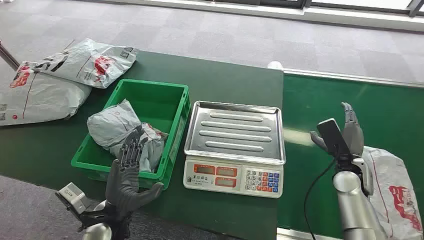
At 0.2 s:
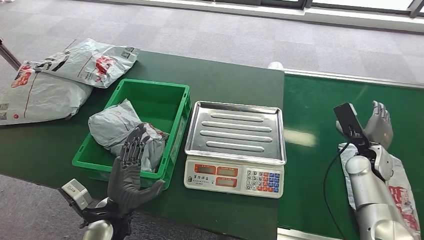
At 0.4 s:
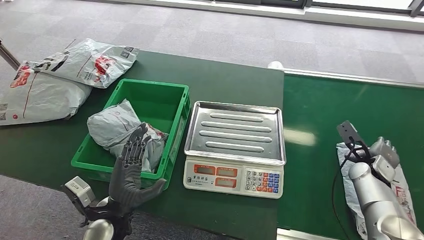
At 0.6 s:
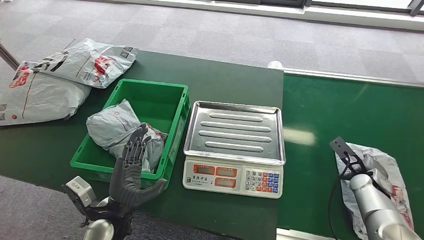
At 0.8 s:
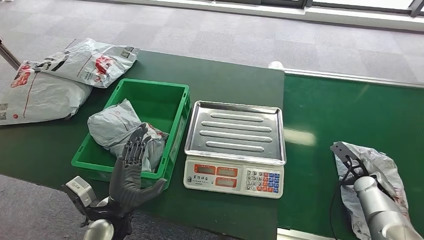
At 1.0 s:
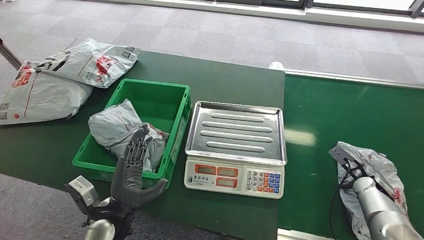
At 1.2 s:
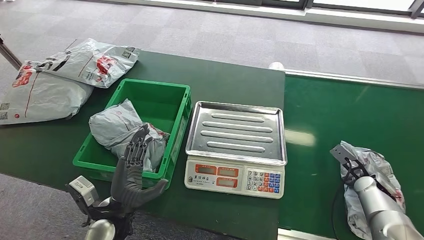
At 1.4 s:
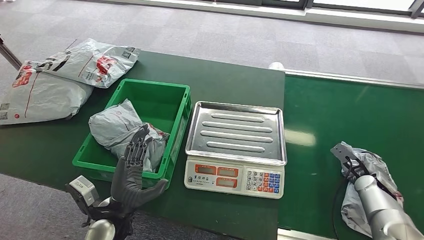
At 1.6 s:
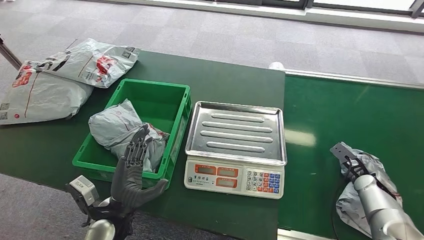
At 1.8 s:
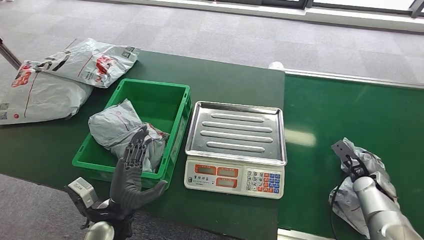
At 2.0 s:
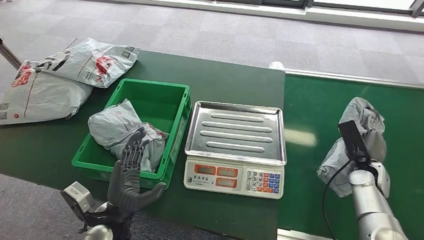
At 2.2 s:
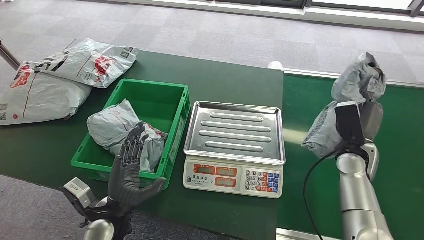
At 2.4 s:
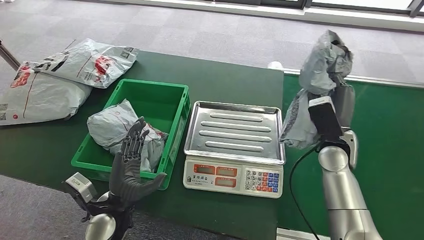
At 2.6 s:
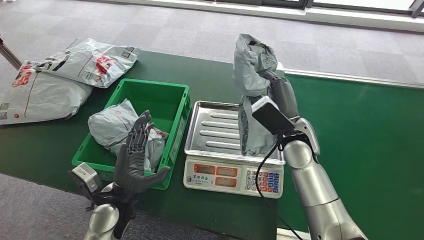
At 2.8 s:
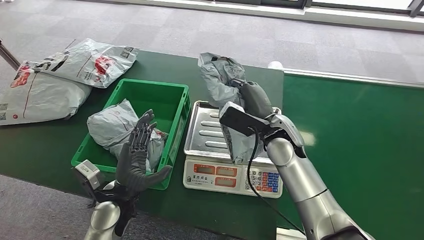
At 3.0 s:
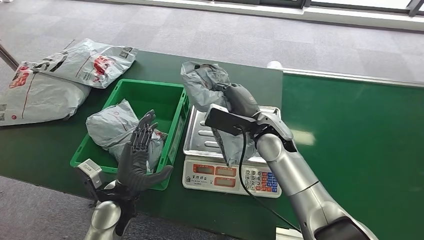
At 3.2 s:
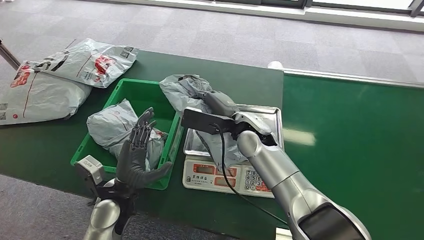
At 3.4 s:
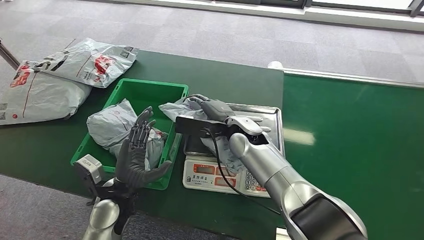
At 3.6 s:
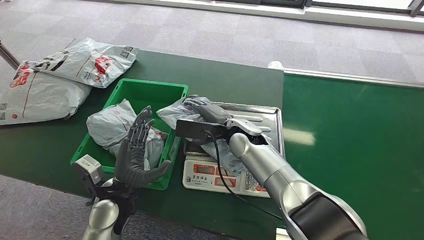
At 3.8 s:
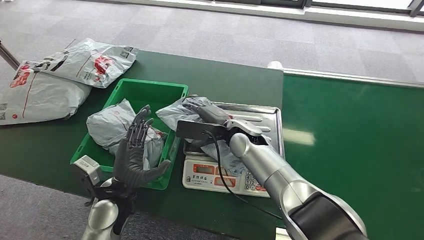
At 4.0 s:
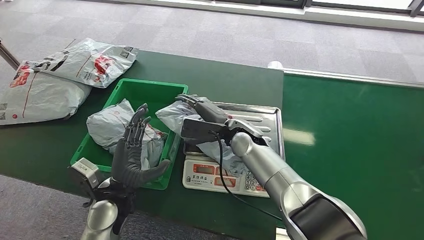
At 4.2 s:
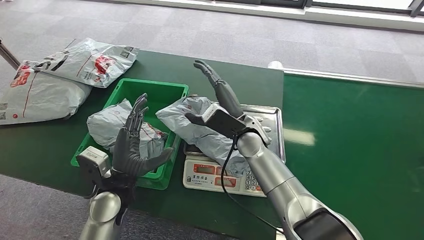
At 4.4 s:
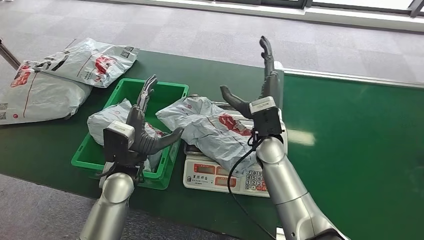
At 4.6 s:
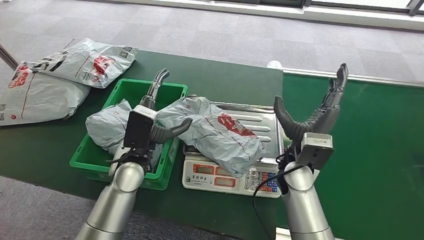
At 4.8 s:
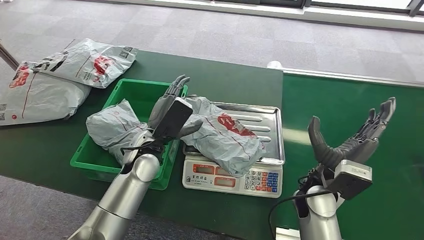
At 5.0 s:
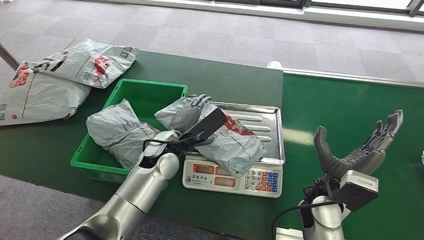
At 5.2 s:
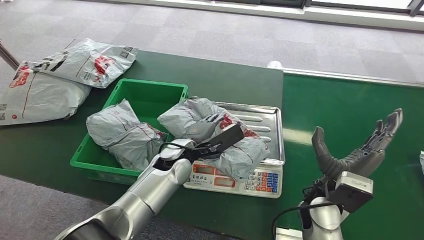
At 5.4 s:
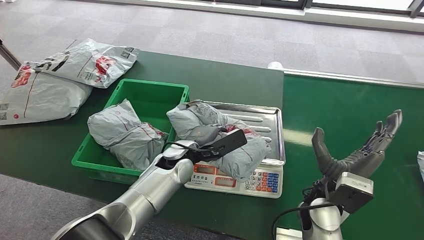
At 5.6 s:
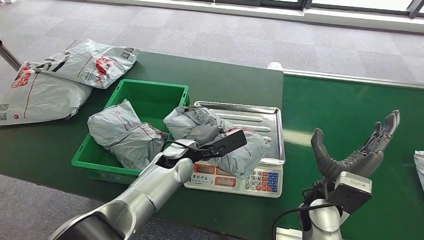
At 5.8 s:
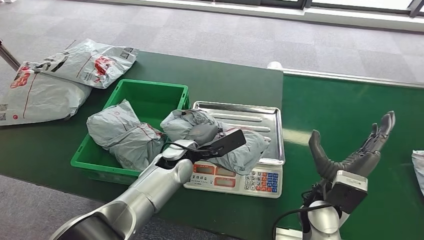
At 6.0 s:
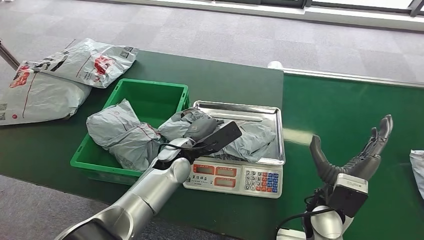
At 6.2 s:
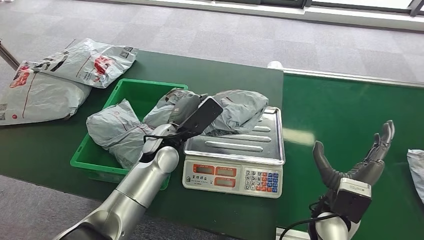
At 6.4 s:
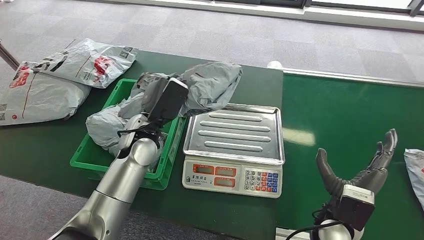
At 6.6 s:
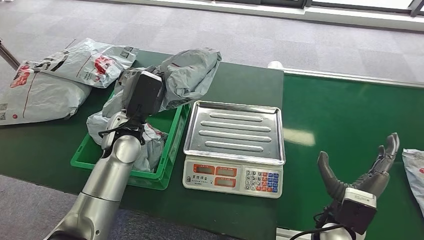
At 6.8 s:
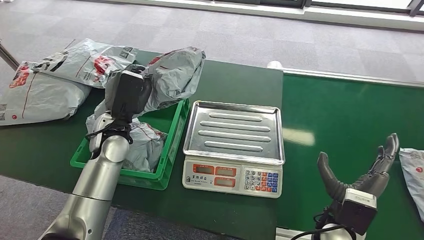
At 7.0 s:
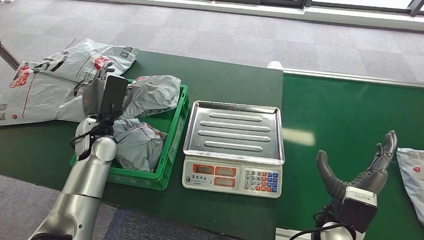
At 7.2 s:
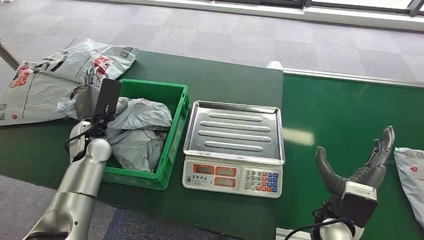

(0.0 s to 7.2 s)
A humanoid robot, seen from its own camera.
Step, 0.0 s - 3.0 s: Pick up the package from the conveyor belt.
Step, 3.2 s - 4.8 s: Place the package onto the inbound machine.
Step, 5.0 s - 6.6 s: Pick up the package from the inbound machine.
Step, 6.8 s - 7.0 s: Place the package into the parcel locker.
2.8 s - 4.4 s: The left hand heads upward and forward, covering approximately 10 cm.

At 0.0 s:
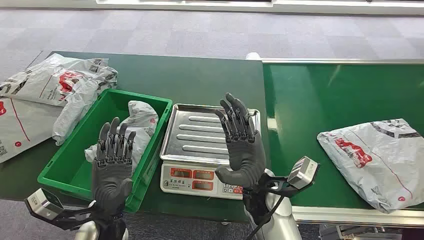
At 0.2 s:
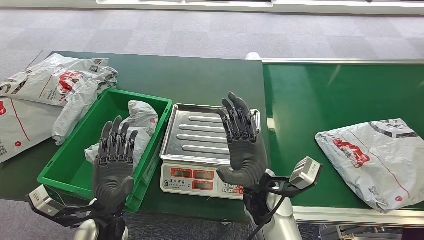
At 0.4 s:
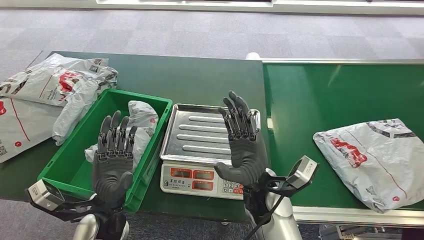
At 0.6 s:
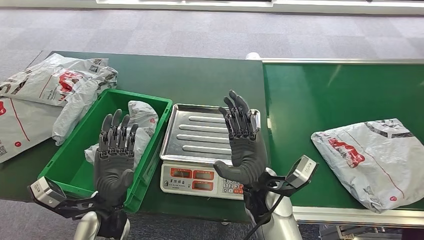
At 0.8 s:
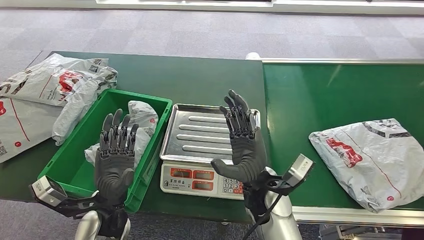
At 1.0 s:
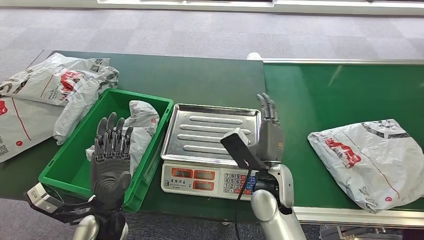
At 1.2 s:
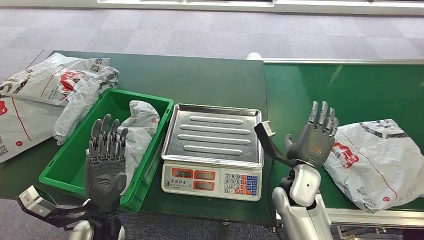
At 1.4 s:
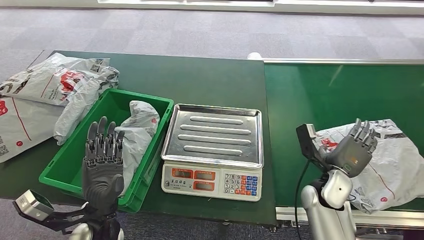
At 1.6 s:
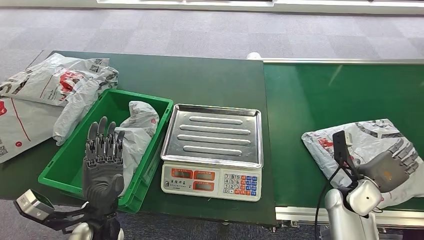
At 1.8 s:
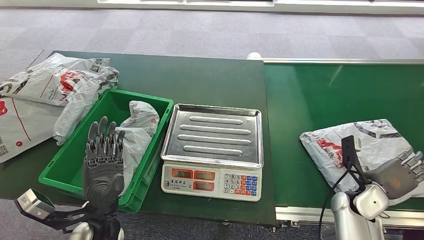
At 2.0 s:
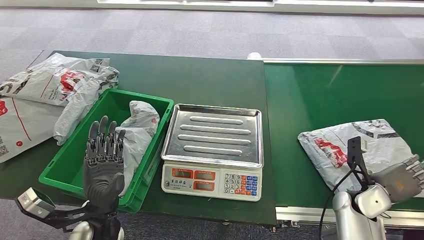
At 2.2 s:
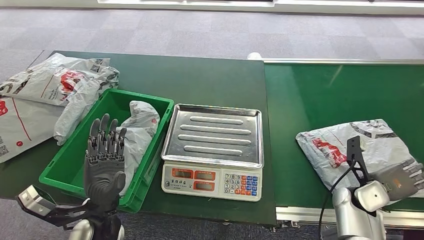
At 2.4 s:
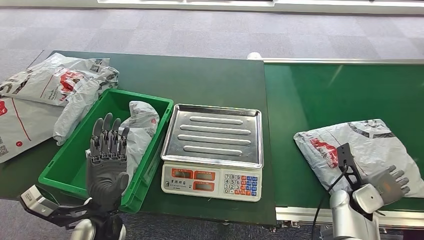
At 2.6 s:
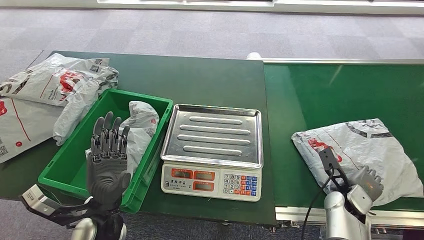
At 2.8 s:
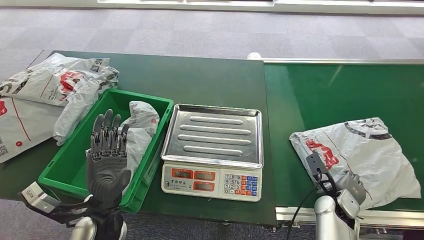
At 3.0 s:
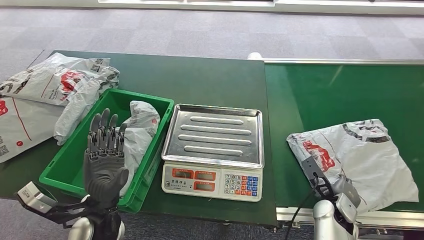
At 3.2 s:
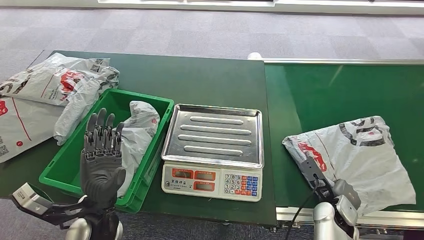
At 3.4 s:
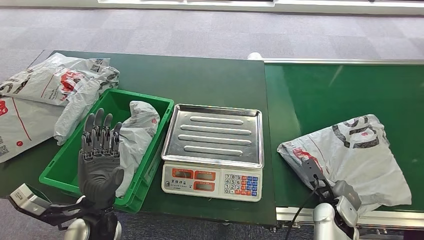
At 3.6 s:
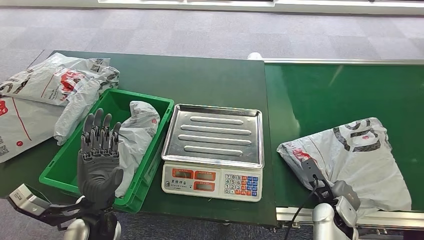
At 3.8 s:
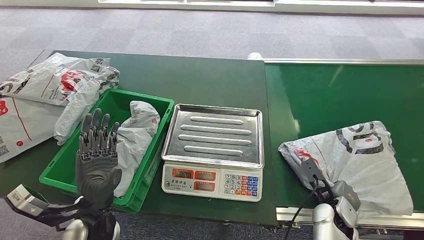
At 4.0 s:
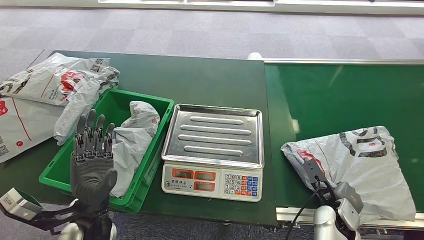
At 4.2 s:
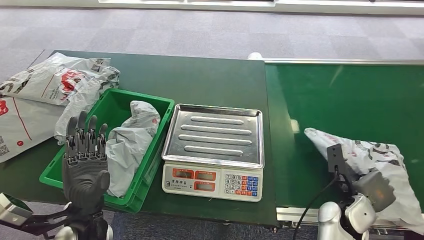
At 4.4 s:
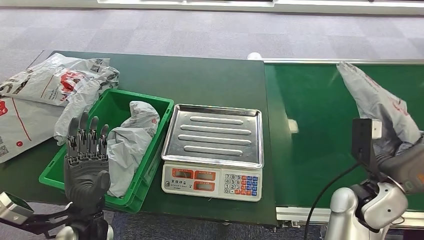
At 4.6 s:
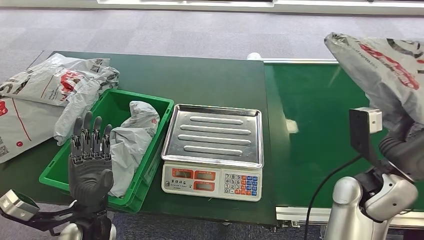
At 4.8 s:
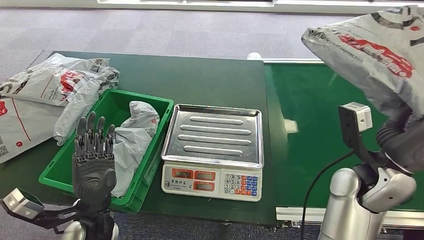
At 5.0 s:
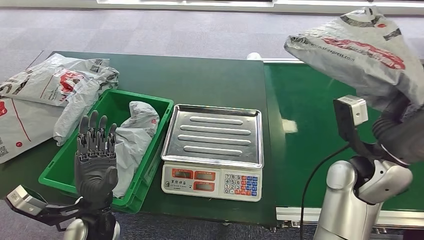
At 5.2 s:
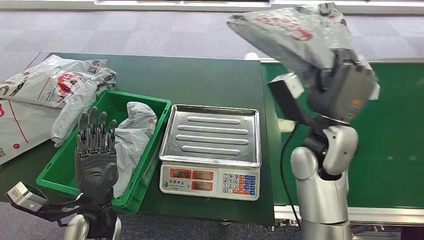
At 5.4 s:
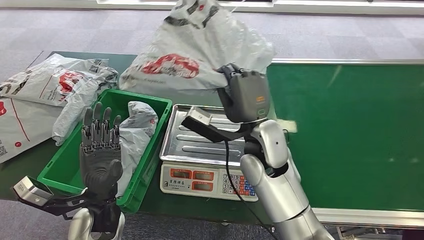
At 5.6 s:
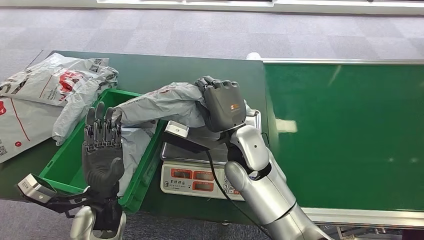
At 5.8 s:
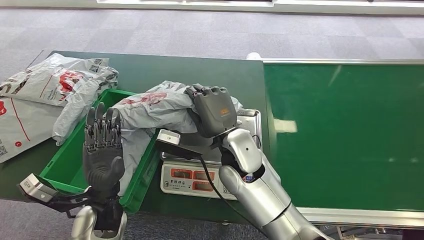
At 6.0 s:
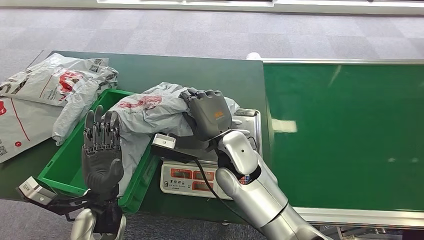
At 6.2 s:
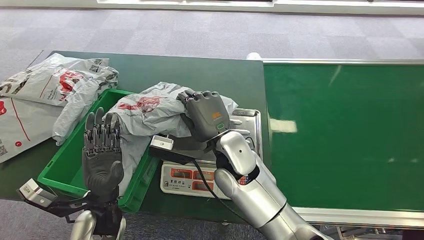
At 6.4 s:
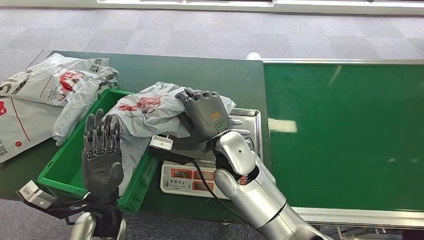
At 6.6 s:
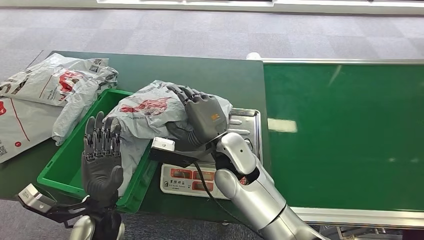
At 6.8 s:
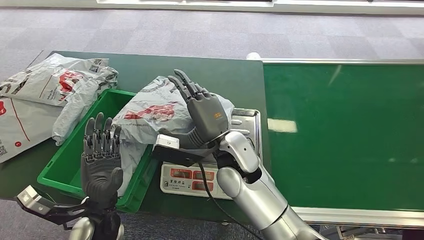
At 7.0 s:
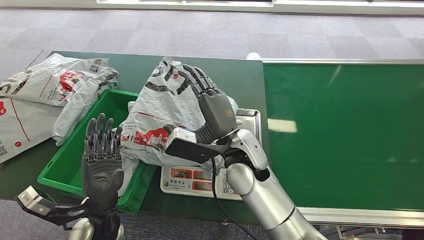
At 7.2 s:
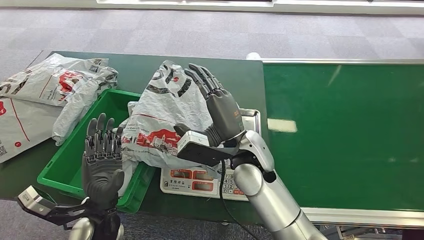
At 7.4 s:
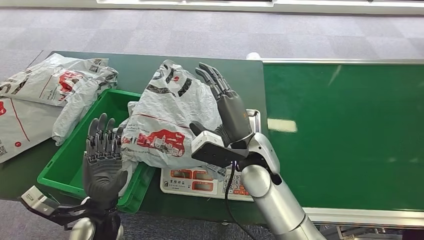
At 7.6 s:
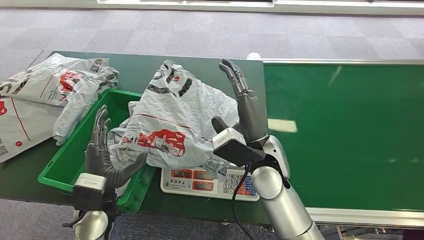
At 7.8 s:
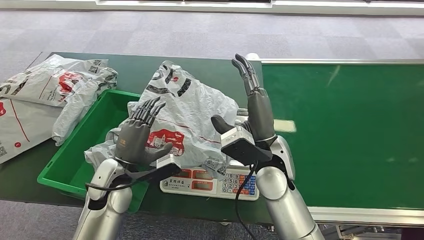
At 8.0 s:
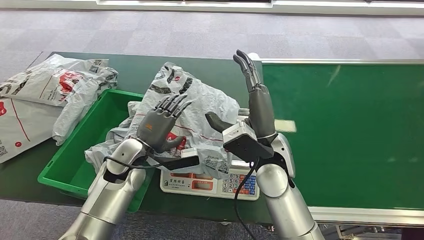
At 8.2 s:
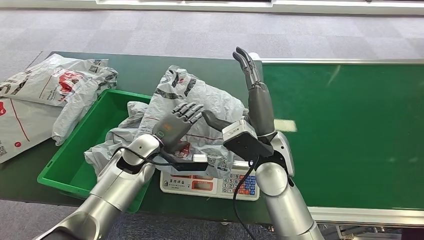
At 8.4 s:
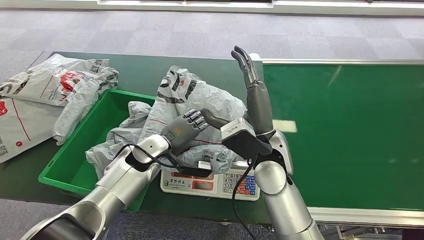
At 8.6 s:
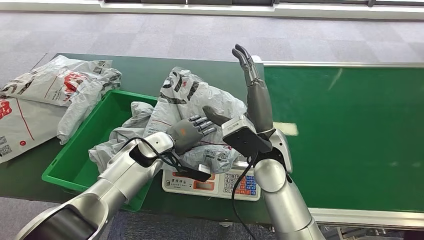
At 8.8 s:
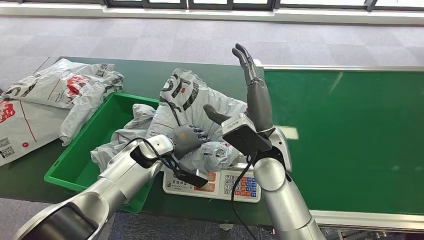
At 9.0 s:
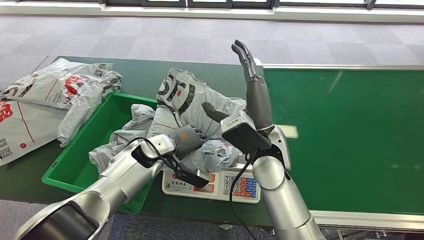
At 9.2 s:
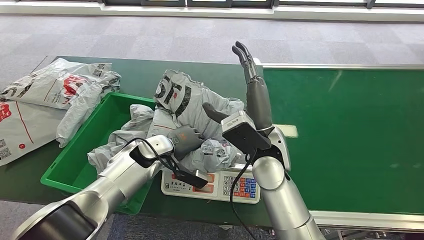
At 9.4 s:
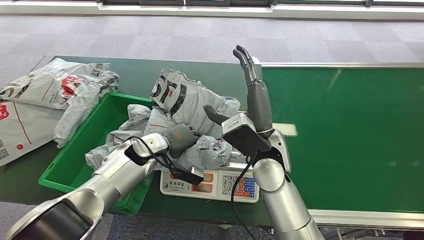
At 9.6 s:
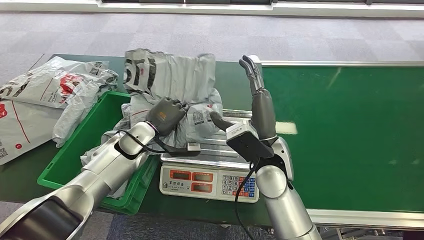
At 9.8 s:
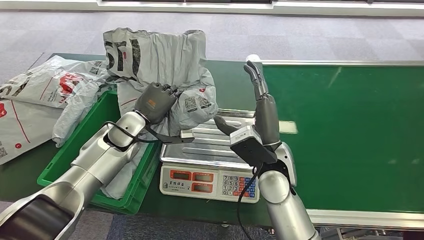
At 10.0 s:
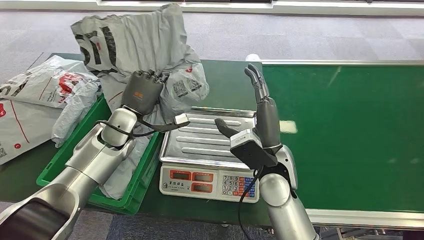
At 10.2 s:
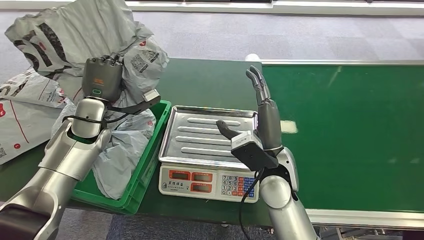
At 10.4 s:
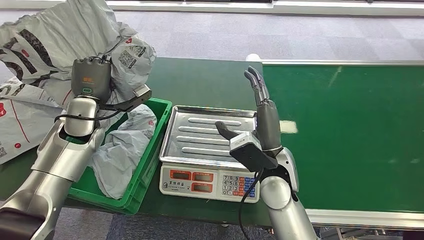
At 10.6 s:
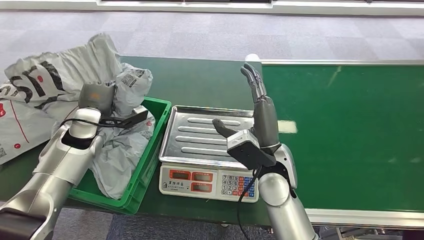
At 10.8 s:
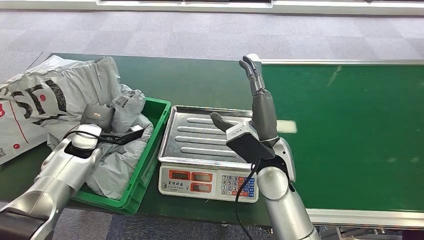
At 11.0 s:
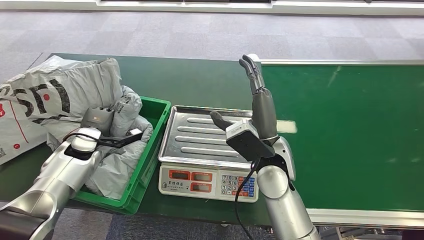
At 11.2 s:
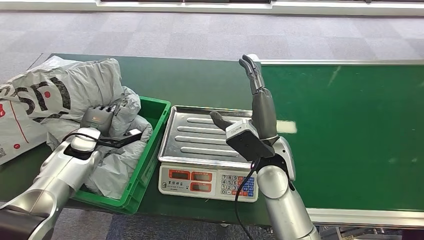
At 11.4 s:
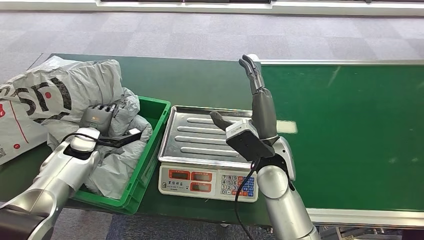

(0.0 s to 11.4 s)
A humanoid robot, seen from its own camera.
Step, 0.0 s - 4.6 s: Pick up the package from the conveyor belt.
Step, 4.8 s - 7.8 s: Place the package onto the inbound machine.
Step, 8.0 s - 10.0 s: Pick up the package from the inbound machine.
Step, 10.4 s - 11.4 s: Place the package into the parcel locker.
1.4 s - 2.8 s: The right hand goes some 10 cm to the right and downward.
2.8 s - 4.2 s: The right hand shifts by some 5 cm.
